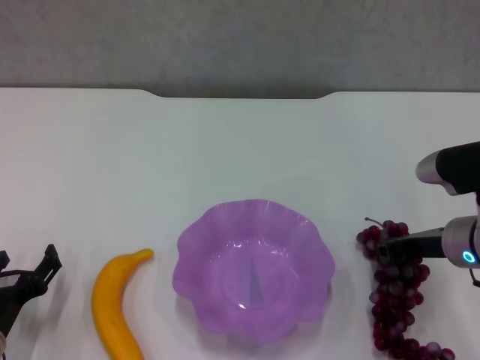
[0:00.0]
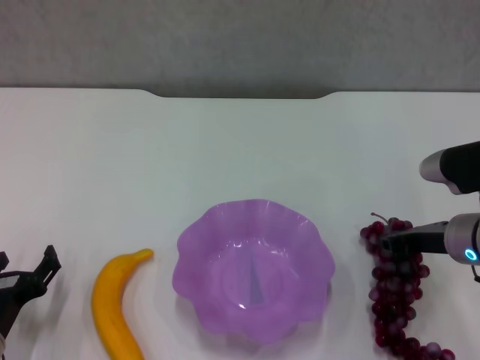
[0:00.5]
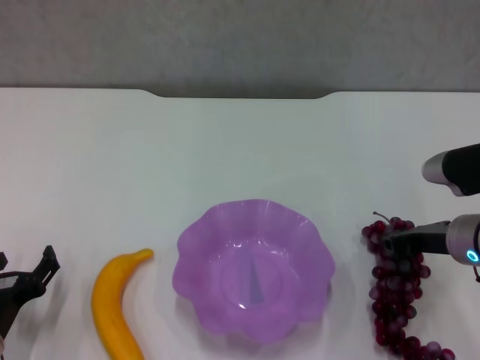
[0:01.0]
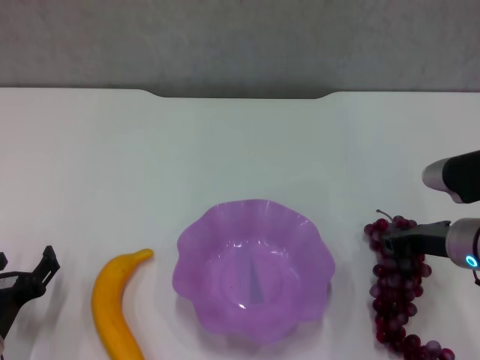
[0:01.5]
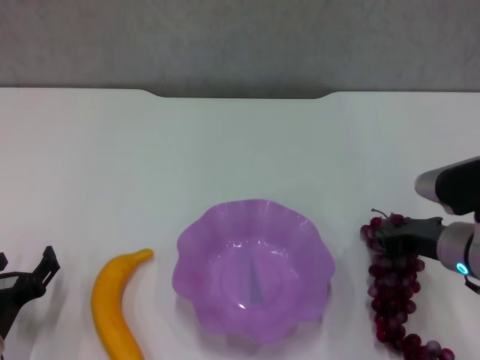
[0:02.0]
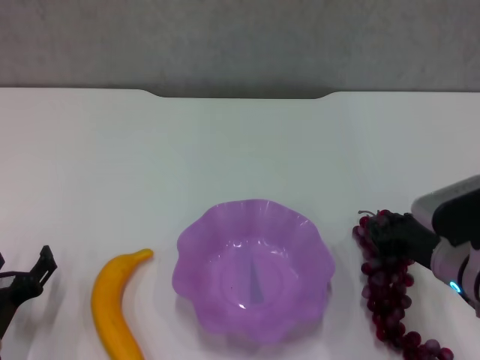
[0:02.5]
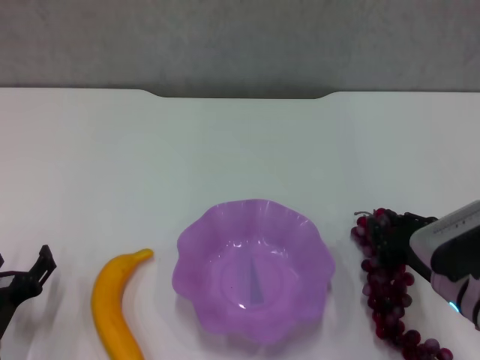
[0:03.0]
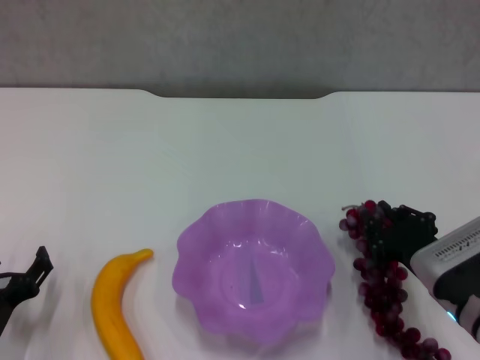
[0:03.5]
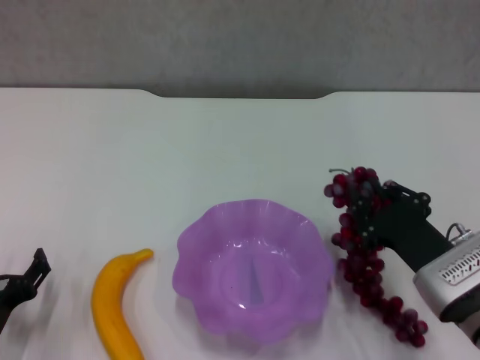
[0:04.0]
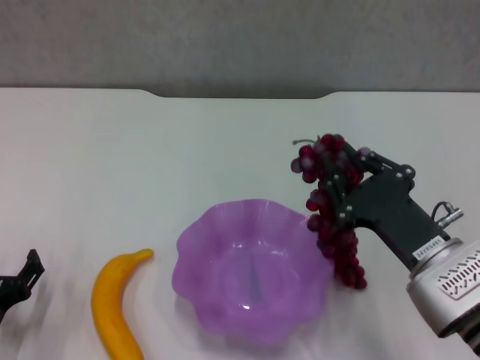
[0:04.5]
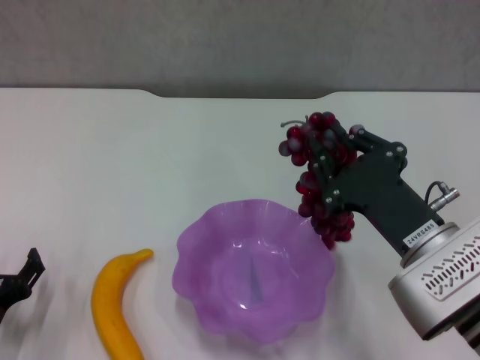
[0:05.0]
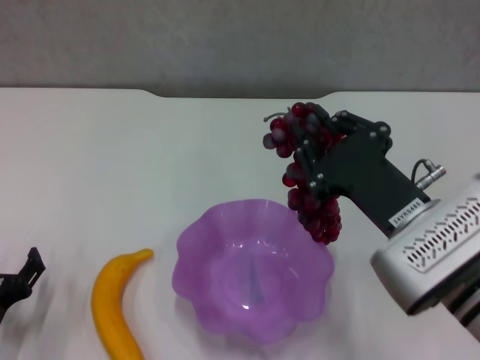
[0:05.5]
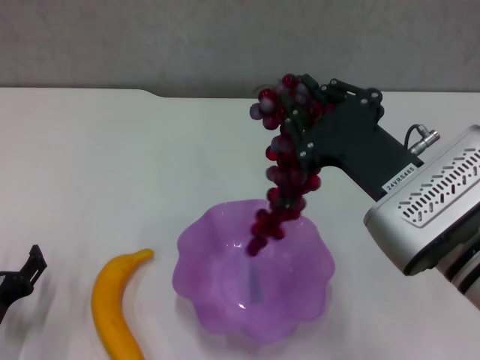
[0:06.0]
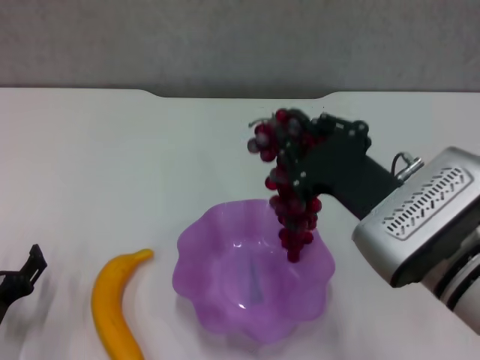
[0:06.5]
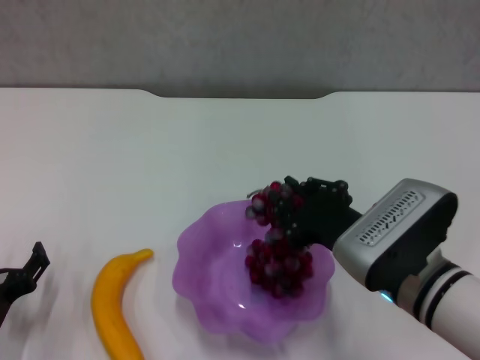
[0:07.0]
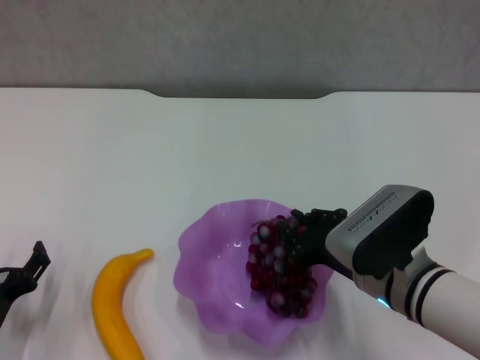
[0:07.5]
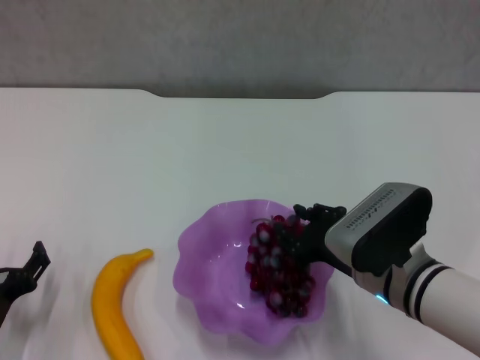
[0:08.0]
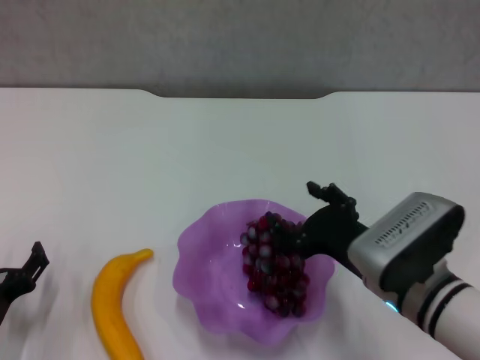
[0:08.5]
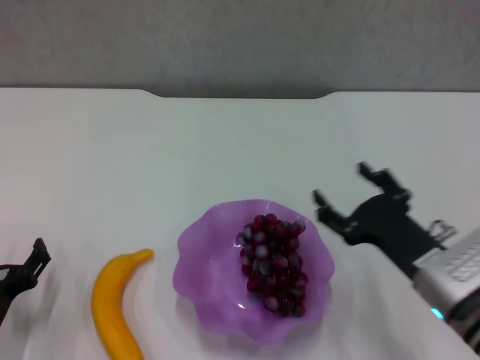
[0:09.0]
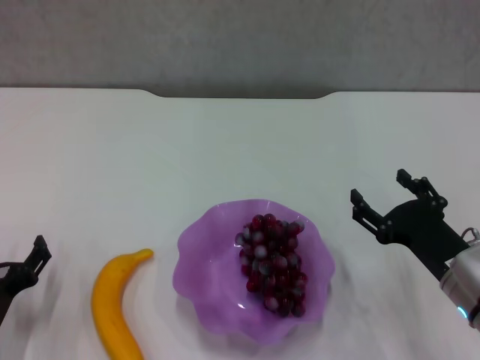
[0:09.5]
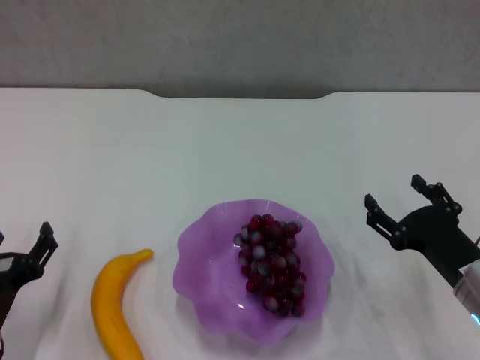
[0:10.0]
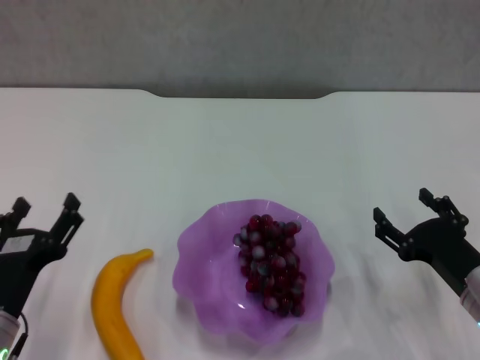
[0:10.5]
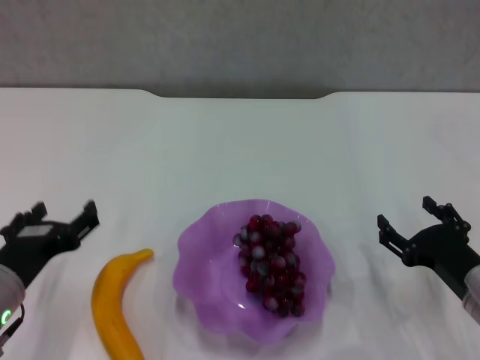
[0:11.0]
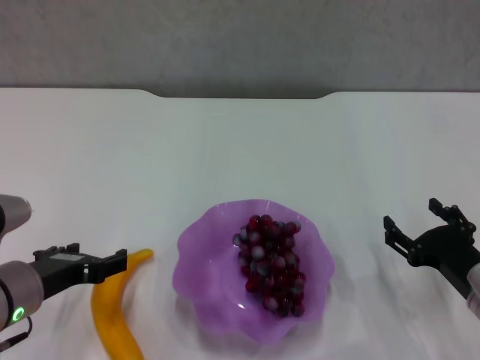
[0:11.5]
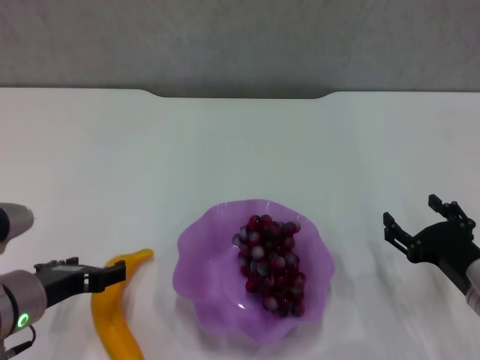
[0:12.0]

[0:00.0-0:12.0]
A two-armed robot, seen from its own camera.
Step, 0:00.5 to 0:08.5: Place the grape in the purple plate with right gripper.
0:00.0 to 0:02.0: The grippers move only a little.
0:02.0 to 0:04.0: The right gripper is displaced backward by some 5 cm.
0:04.0 to 0:06.0: The right gripper is displaced upward and to the left by approximately 15 cm.
0:06.0 to 0:08.0: The right gripper moves downward, about 10 cm.
0:08.0 to 0:10.0: The right gripper heads to the right, covering roughly 10 cm, and opens its fingers.
0:10.0 to 0:12.0: The left gripper is displaced upward by about 5 cm.

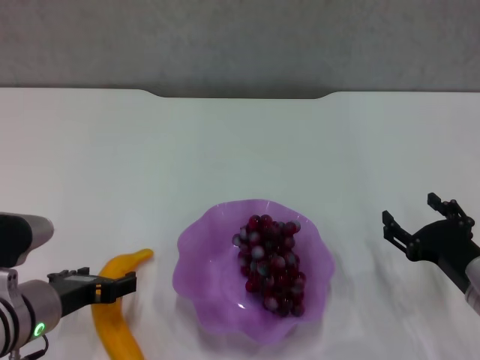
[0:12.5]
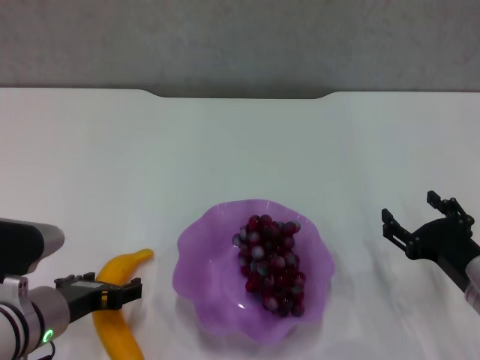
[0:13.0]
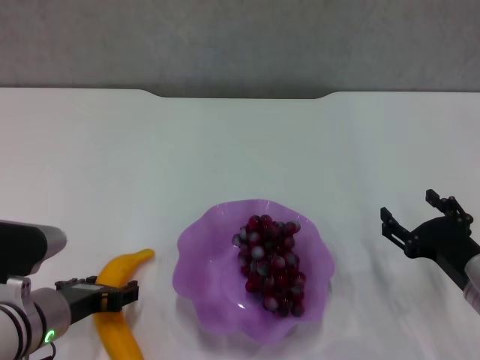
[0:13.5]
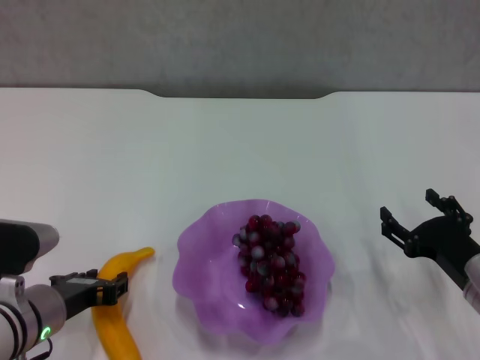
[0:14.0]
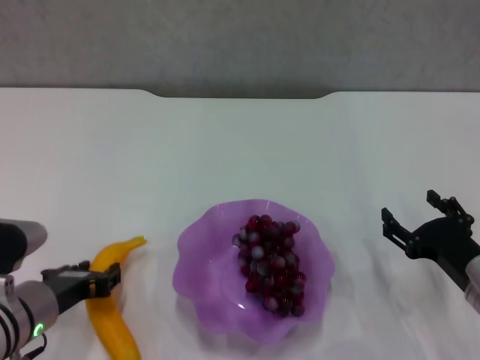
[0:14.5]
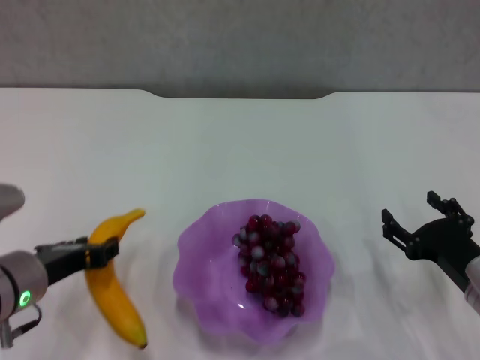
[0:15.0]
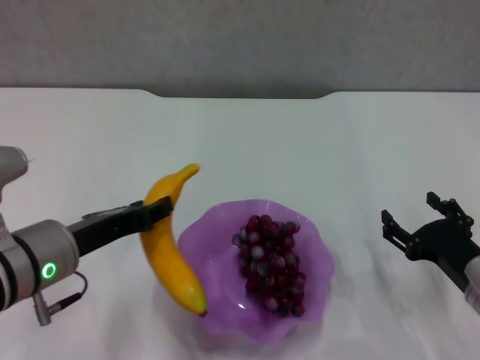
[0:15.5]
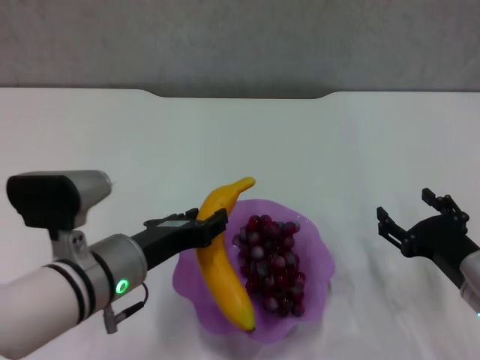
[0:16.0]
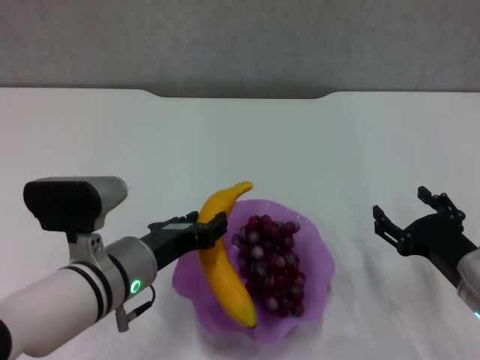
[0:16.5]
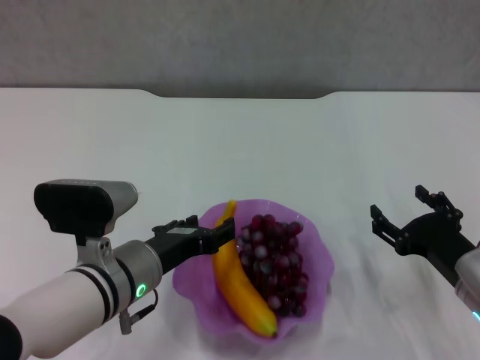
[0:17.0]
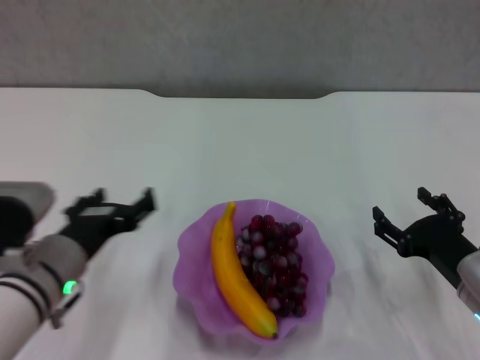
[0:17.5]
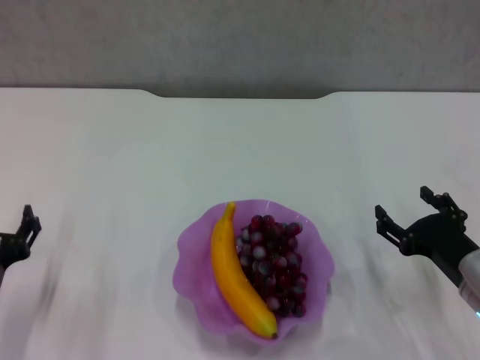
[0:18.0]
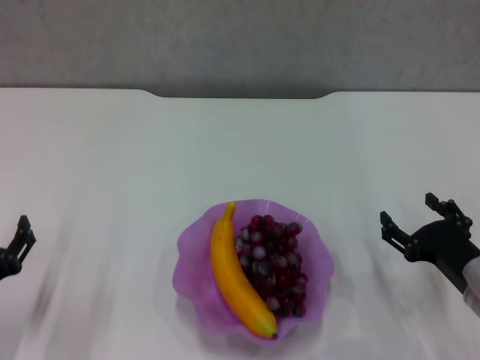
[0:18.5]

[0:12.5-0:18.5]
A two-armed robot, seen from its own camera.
Step, 0:14.5 to 0:17.0: Place the banana in the purple plate with left gripper.
0:12.5 to 0:14.5: The left gripper closes up.
0:14.5 to 0:16.5: The left gripper heads to the right, covering approximately 10 cm.
0:16.5 to 0:18.5: The left gripper moves to the left, backward and downward, about 20 cm, and opens up.
